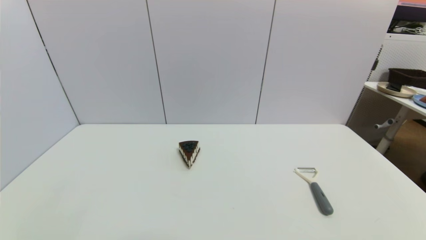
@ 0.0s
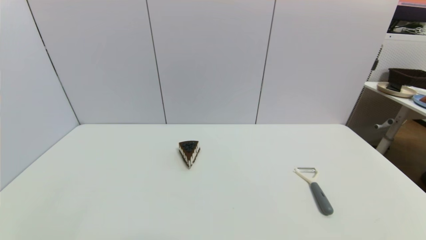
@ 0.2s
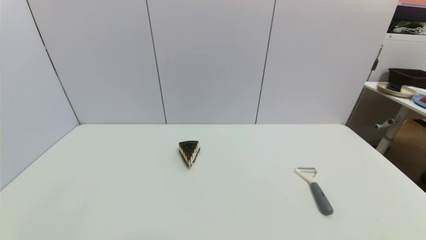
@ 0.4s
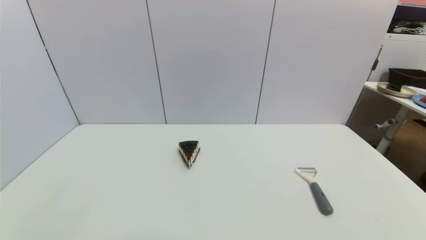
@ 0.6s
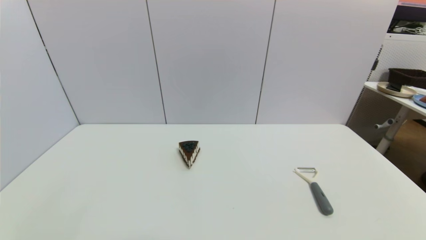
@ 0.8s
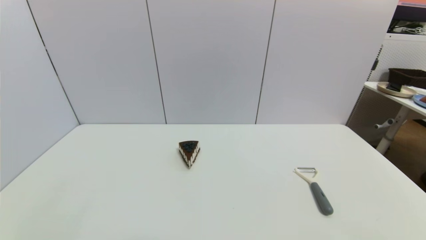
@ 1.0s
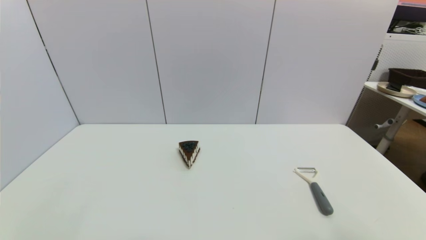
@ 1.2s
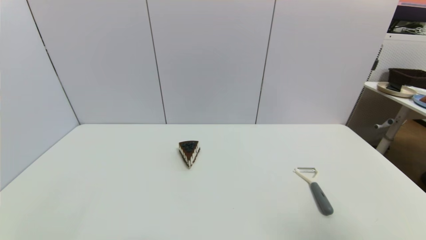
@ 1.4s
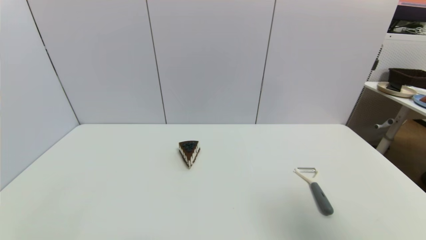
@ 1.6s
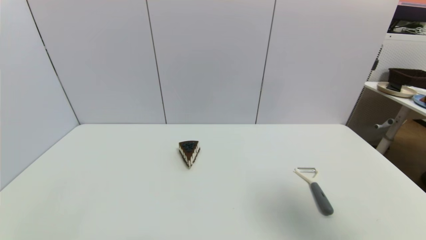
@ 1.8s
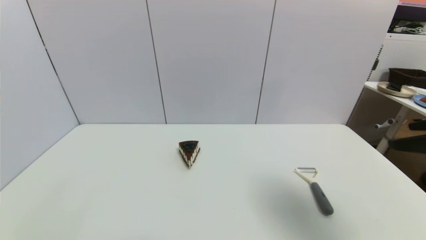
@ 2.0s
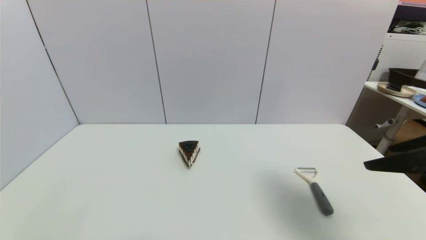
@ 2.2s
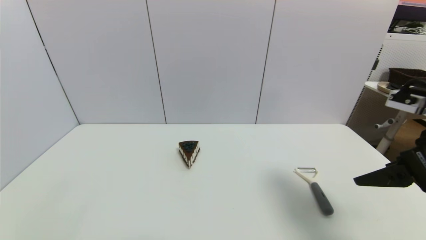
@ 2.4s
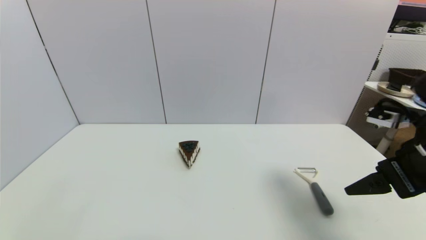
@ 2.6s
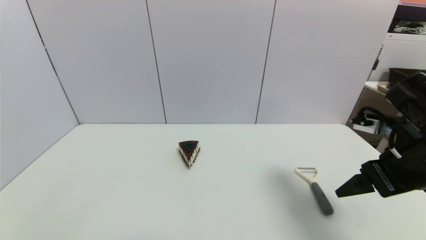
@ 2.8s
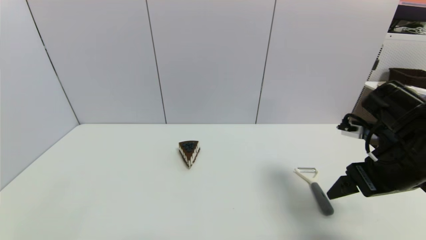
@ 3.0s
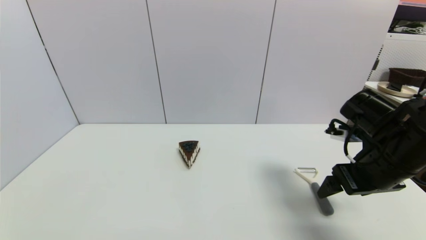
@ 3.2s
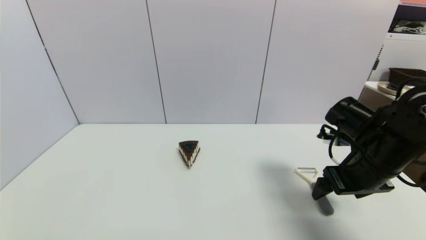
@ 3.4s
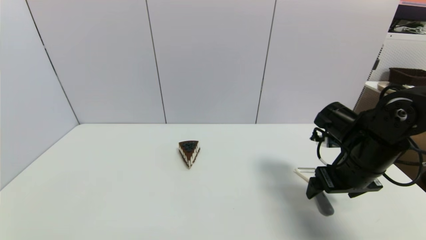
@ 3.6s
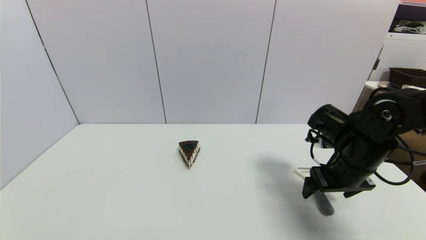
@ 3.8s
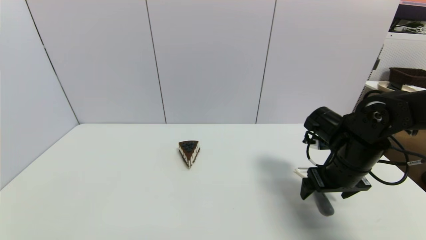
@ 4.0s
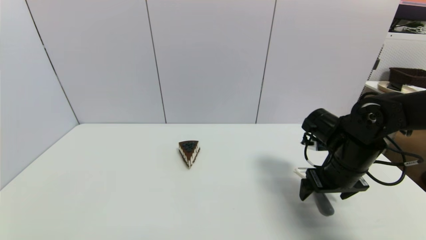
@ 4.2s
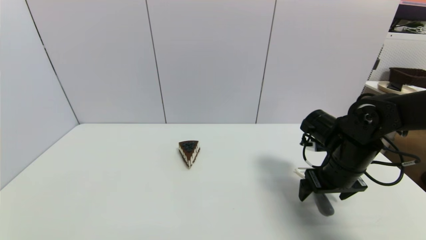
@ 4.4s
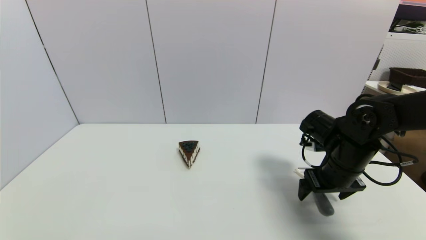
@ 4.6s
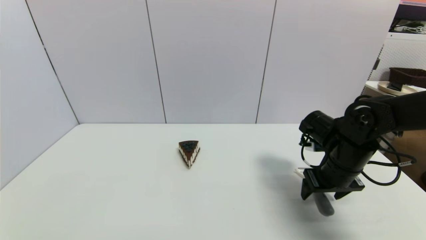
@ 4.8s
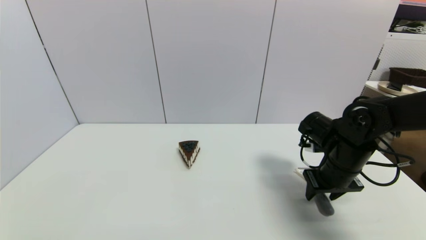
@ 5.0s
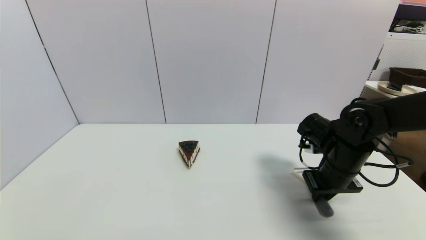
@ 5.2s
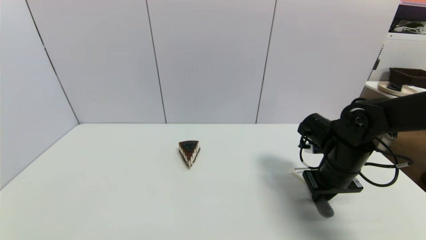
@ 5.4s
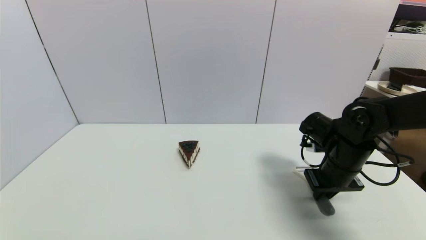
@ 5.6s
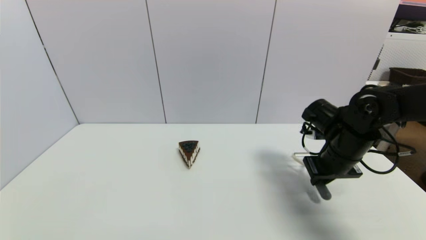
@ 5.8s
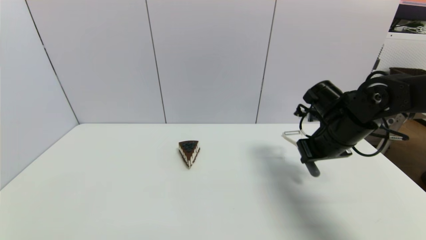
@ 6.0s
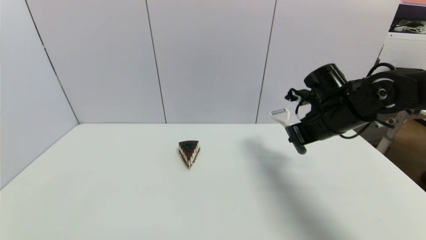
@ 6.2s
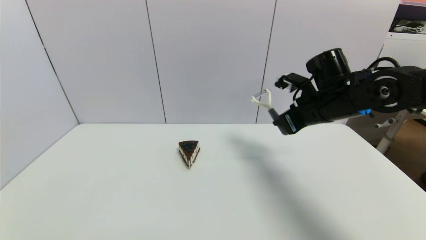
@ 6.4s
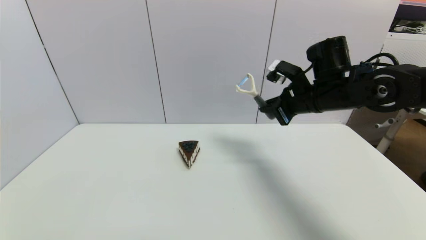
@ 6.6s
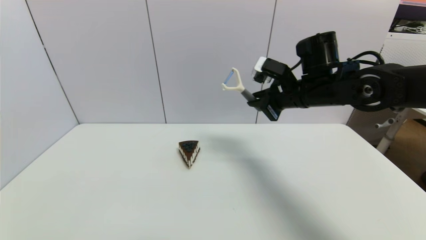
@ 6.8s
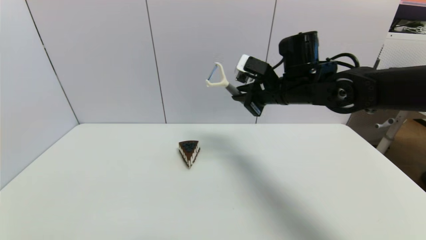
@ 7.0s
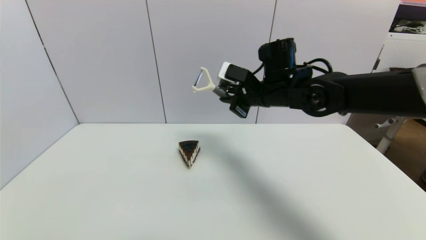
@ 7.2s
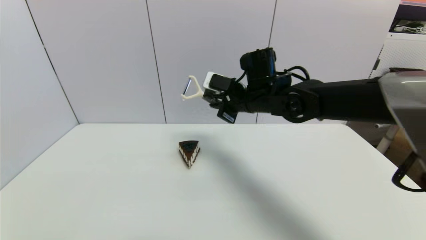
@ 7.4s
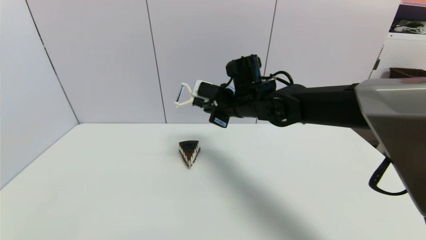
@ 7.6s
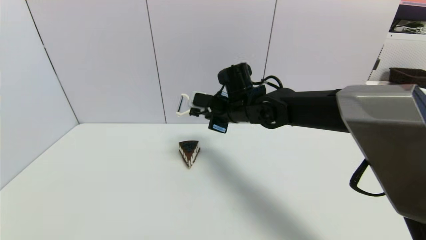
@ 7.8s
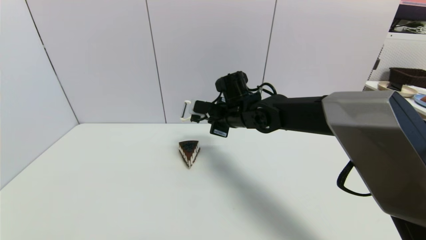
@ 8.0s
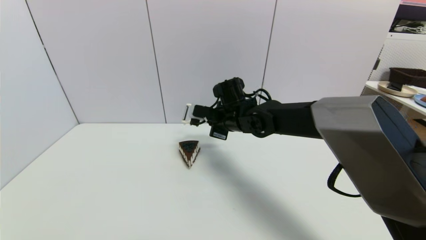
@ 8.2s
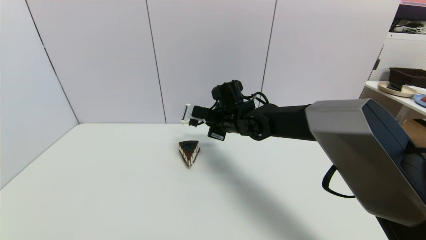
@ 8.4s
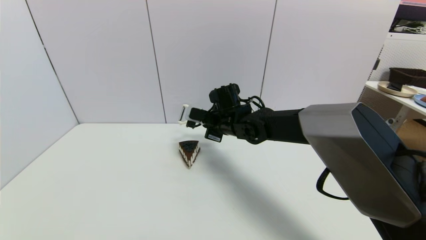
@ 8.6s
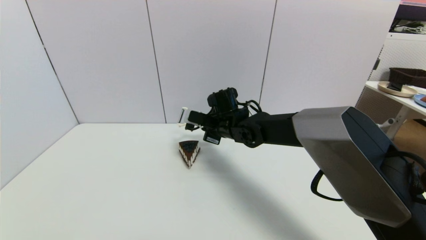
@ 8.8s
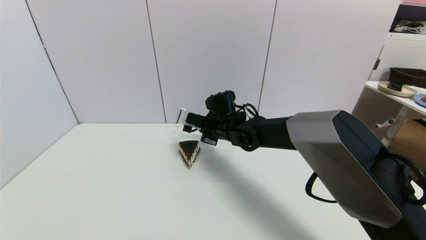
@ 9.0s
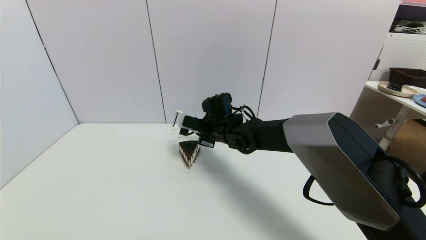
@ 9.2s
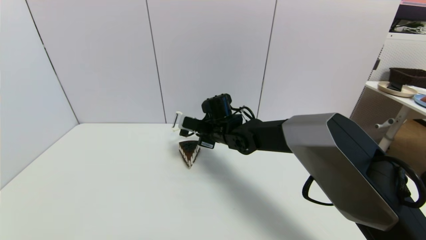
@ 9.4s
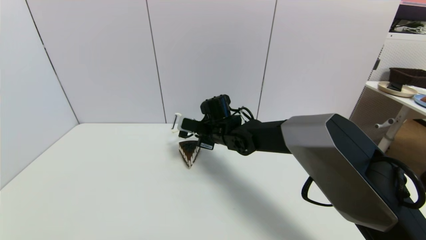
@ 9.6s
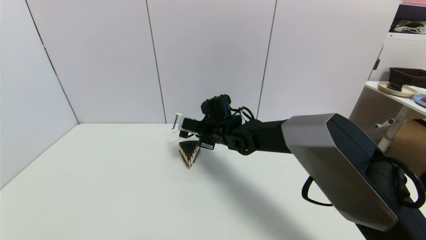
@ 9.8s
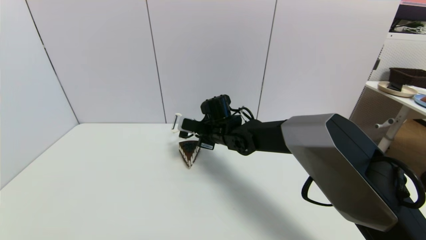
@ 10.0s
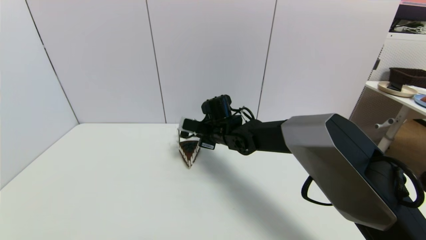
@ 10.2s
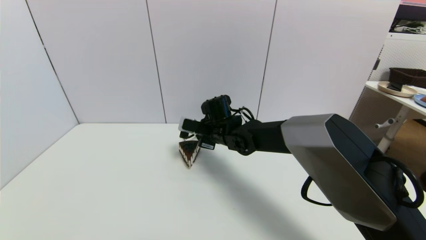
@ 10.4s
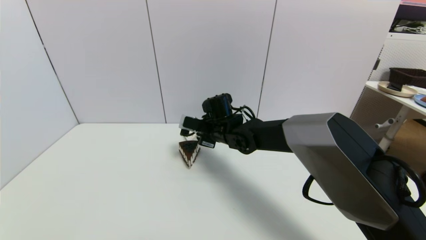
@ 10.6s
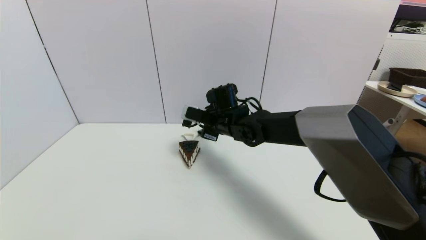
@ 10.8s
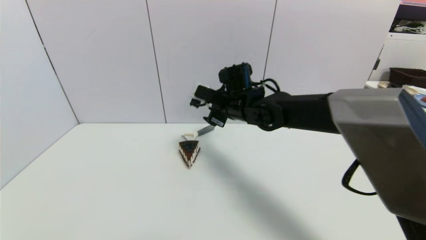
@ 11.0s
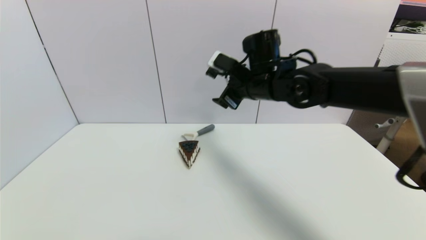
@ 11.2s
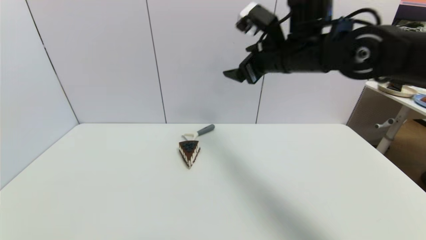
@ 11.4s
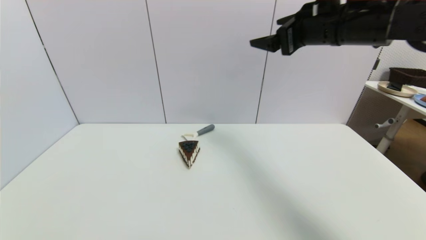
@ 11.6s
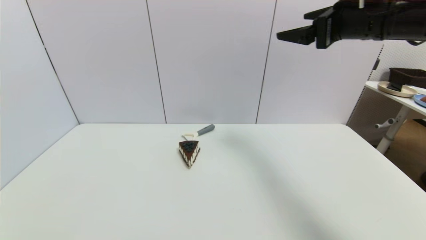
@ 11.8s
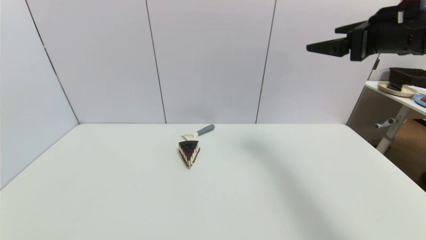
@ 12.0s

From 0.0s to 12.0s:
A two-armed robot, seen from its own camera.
Step, from 2.0s to 5.6s: Grasp the peeler with right gripper.
Step, from 6.0s to 10.8s: Place the peeler on the table with right gripper.
From 0.0s to 1.6s: The right gripper shifts approximately 30 cm upward.
From 1.6s to 3.0s: The right gripper heads downward and forward, covering roughly 20 cm.
From 3.0s to 4.4s: The right gripper heads downward and forward, covering some 10 cm.
From 4.4s to 6.0s: The right gripper moves approximately 5 cm, and closes its fingers.
From 6.0s to 7.6s: The right gripper travels to the left by approximately 20 cm.
From 7.6s to 9.0s: The right gripper heads downward, covering roughly 10 cm.
From 9.0s to 10.4s: The right gripper opens.
From 10.4s to 12.0s: The right gripper shifts about 40 cm to the right, upward and backward, and opens up.

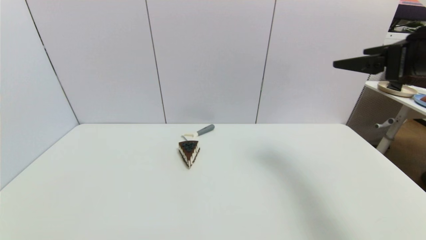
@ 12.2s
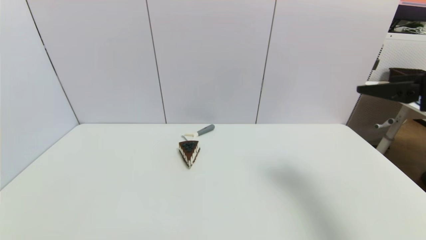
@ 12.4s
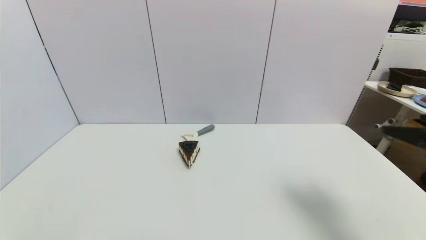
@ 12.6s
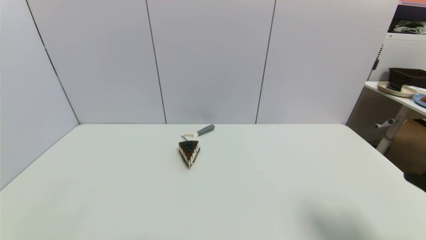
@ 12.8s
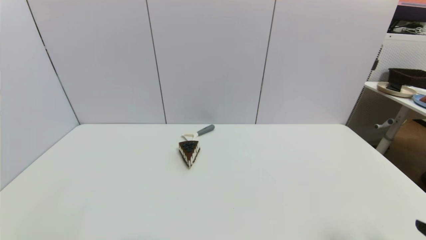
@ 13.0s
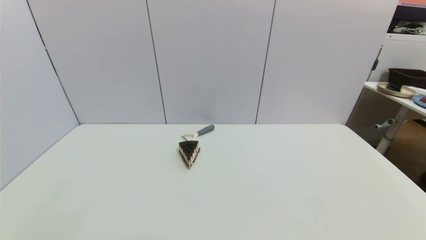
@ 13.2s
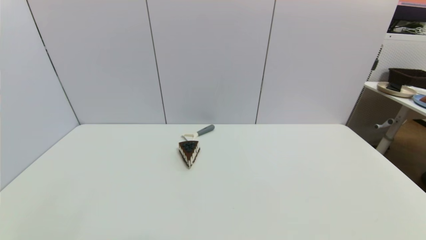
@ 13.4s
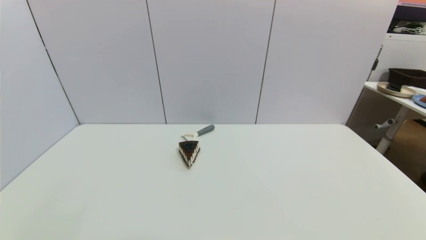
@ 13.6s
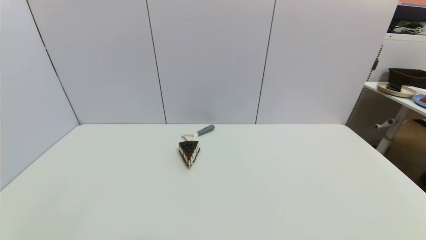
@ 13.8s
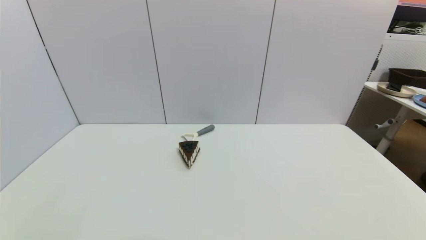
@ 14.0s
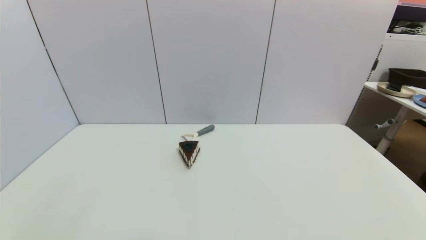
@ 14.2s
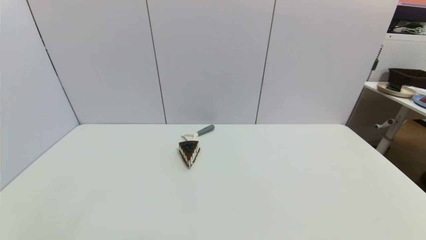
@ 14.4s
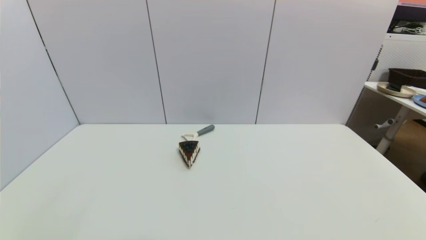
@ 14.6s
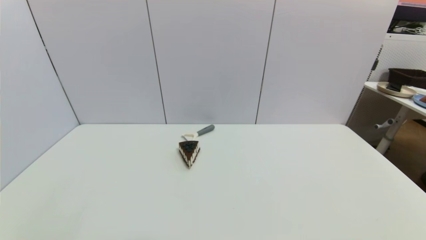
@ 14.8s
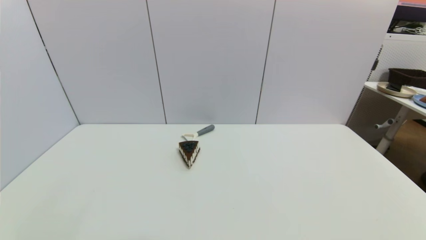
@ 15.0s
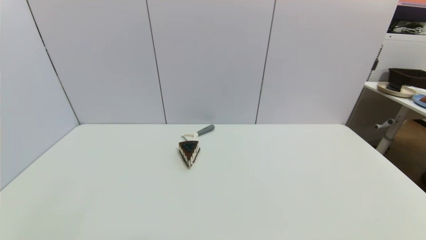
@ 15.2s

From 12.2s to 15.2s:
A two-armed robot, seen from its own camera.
From 12.2s to 13.8s: The right gripper heads downward and backward, covering some 35 cm.
